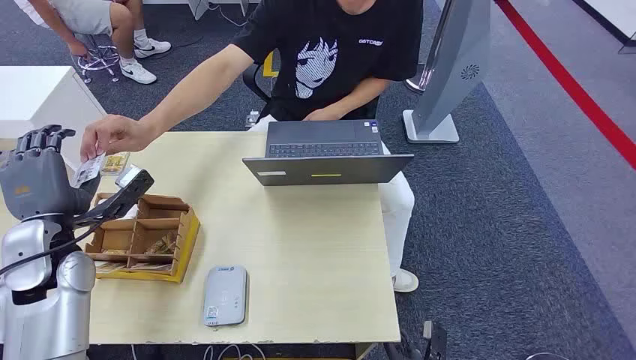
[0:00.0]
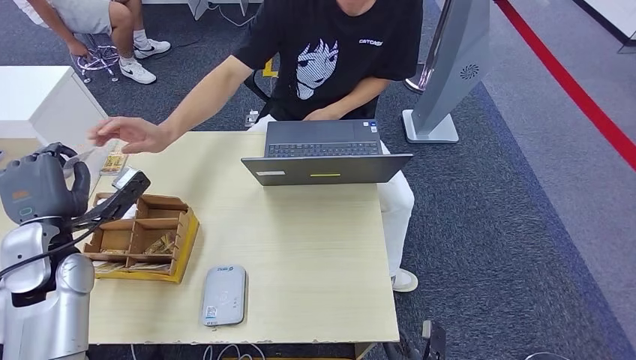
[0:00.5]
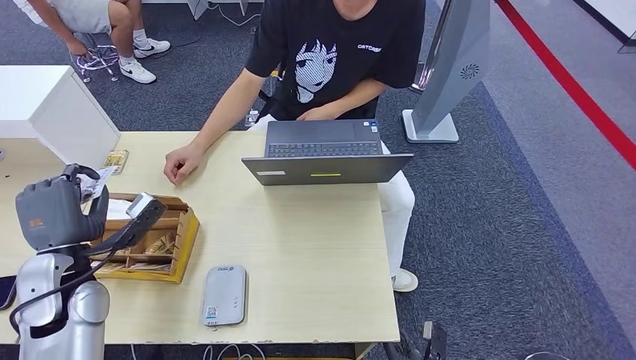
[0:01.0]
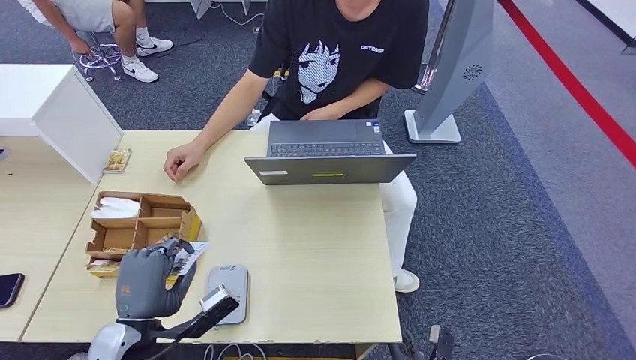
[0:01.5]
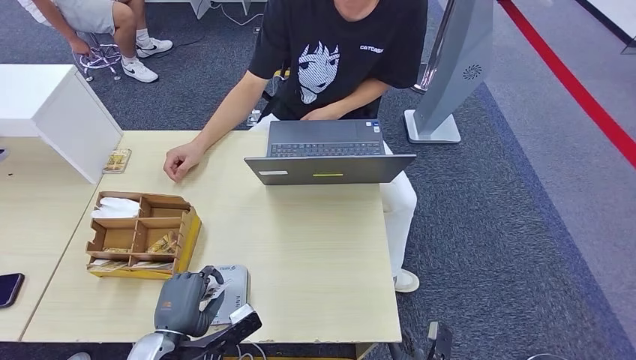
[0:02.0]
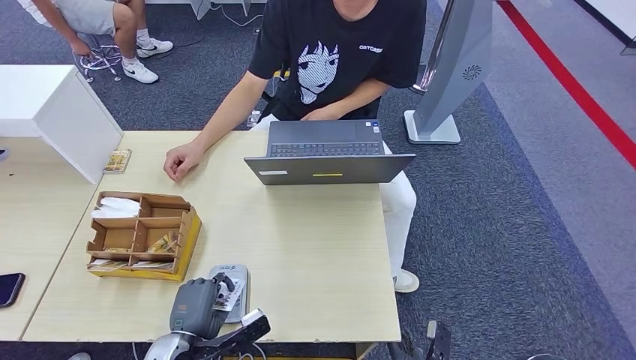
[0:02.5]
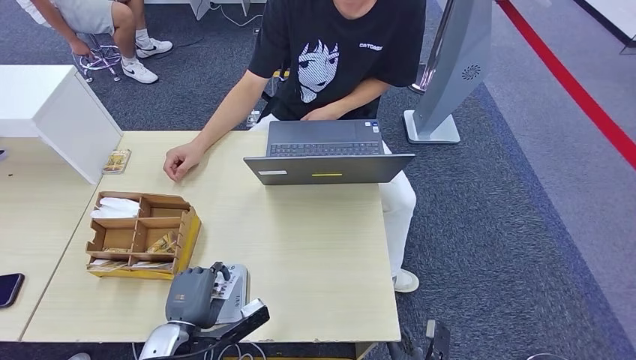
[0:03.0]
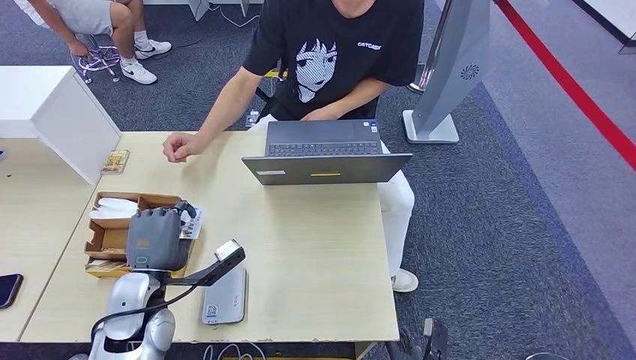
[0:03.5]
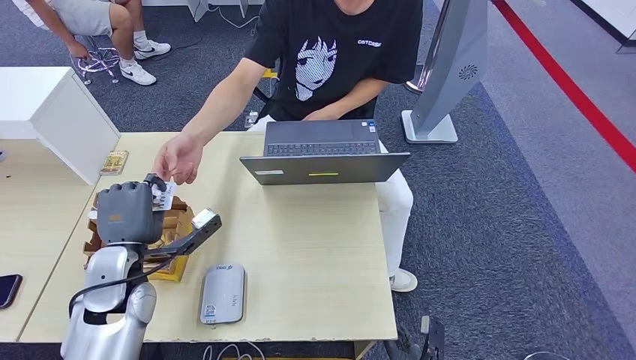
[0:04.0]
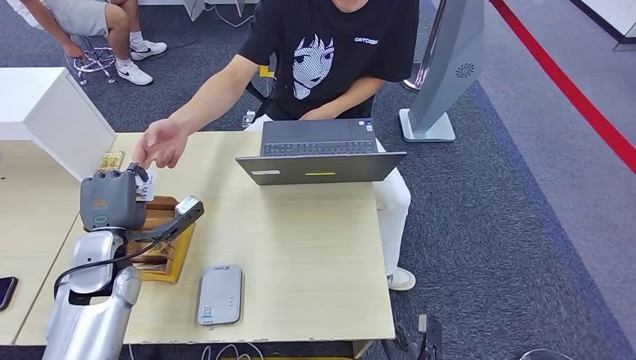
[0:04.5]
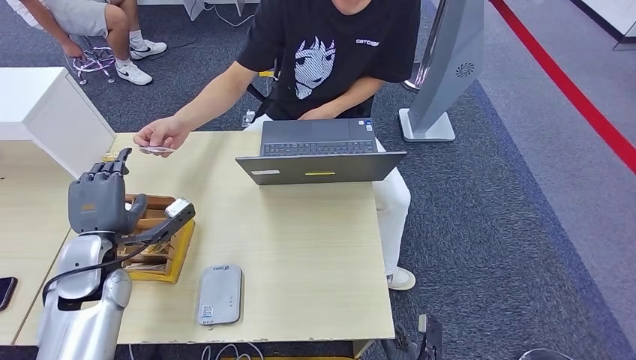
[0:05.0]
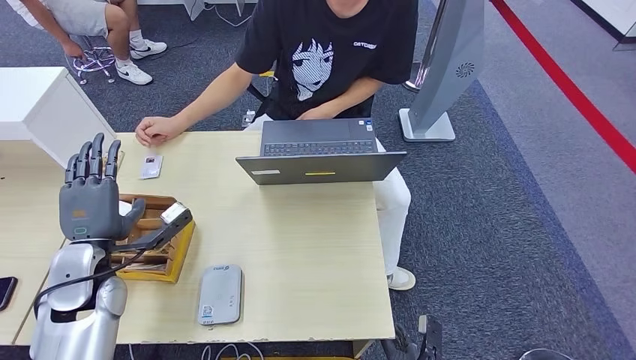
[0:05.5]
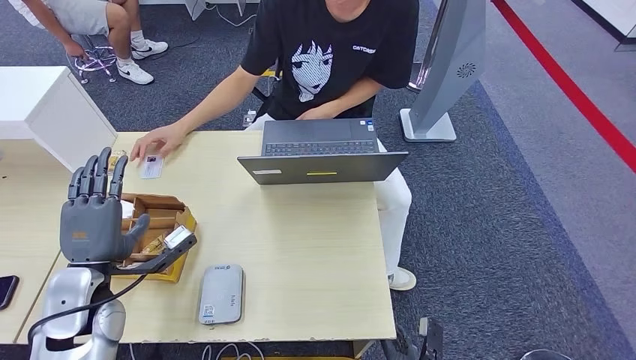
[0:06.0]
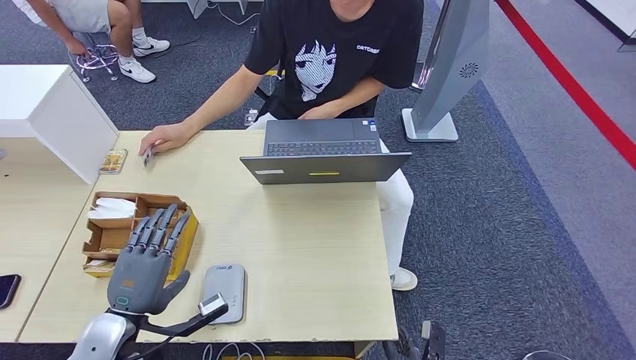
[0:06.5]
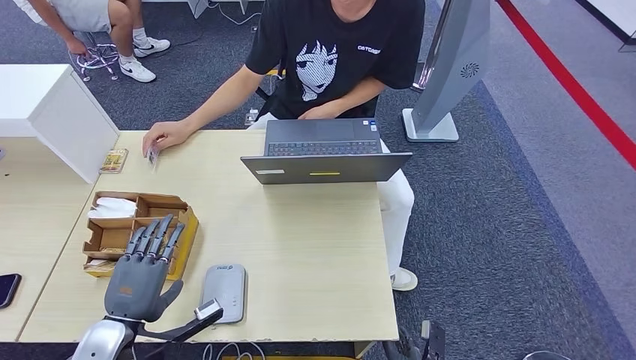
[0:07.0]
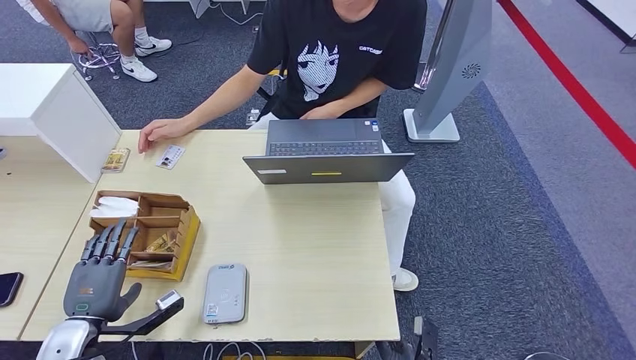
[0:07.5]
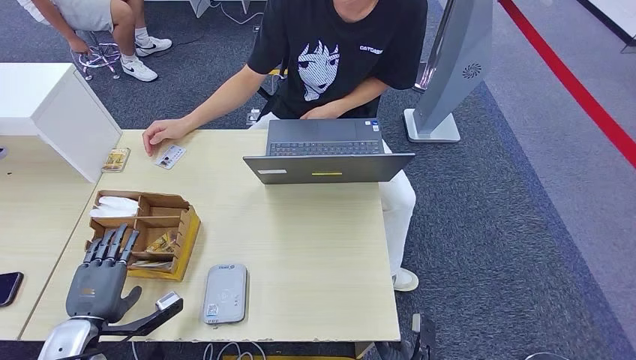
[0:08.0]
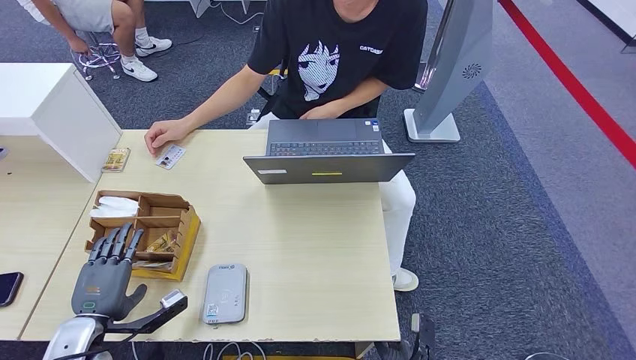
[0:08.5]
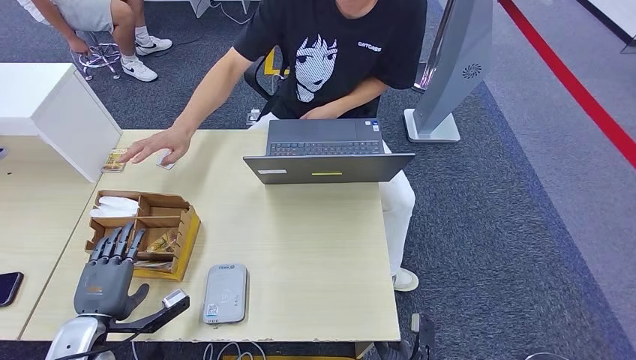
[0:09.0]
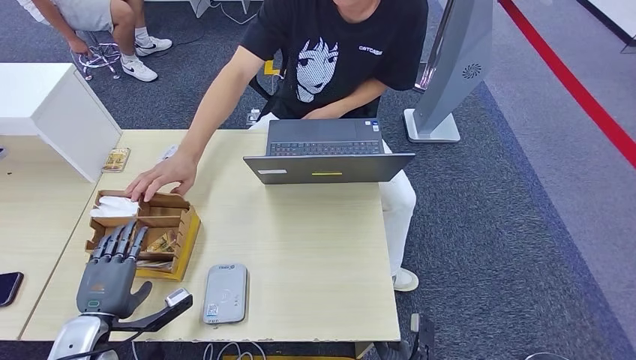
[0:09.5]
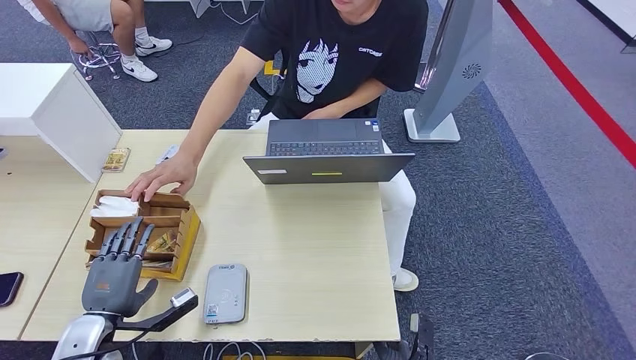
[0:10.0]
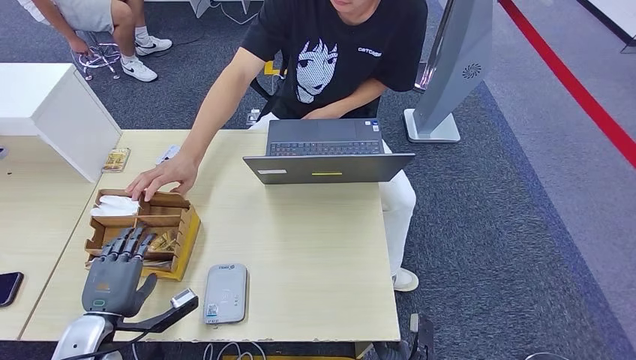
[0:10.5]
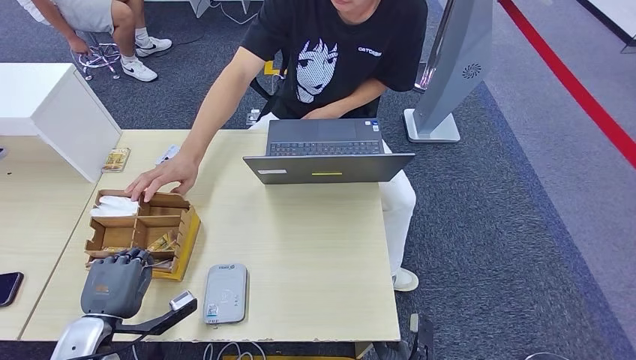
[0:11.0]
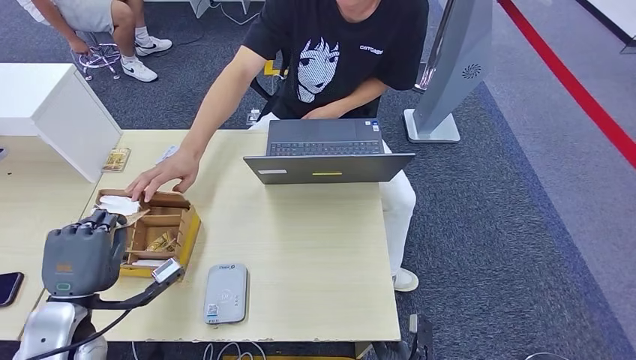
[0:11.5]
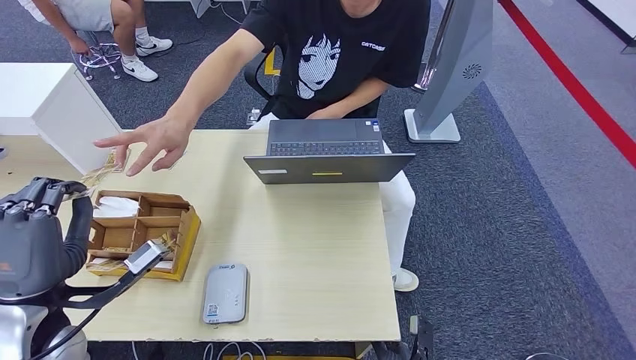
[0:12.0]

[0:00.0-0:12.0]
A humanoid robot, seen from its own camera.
Step, 0:00.0 to 0:00.5: Take the ID card from the person's hand.
Step, 0:01.5 to 0:04.0: Place the ID card on the card reader.
Step, 0:04.5 to 0:06.5: Hand the ID card to the person.
Step, 0:07.0 to 0:10.5: Pick up the room key from the key card box.
Step, 0:11.0 to 0:12.0: Hand the room key to the person.
0:02.0 to 0:04.0: The left hand is displaced forward and upward by roughly 15 cm.
0:04.0 to 0:06.0: The left hand shifts by roughly 5 cm.
0:06.0 to 0:08.0: The left hand is displaced downward, to the left and backward by roughly 15 cm.
0:08.0 to 0:10.0: The hands stay close to where they were, moving slightly.
0:10.0 to 0:12.0: The left hand shifts approximately 15 cm upward.
